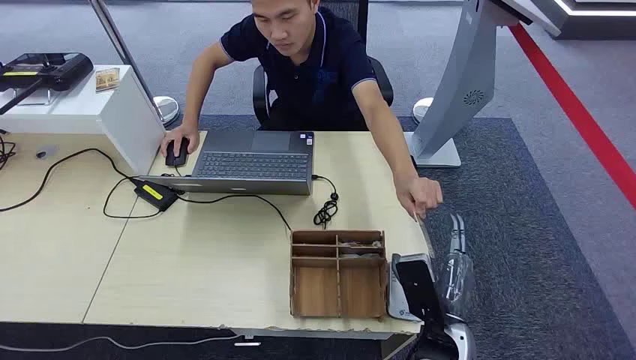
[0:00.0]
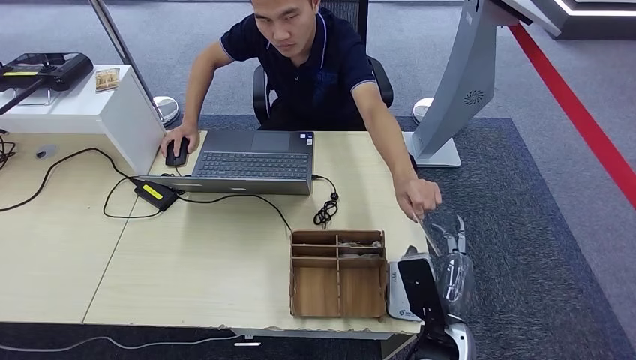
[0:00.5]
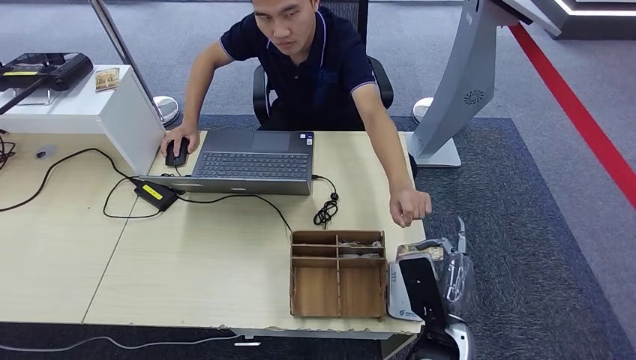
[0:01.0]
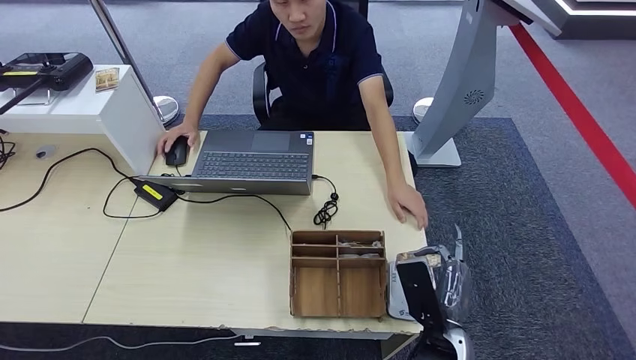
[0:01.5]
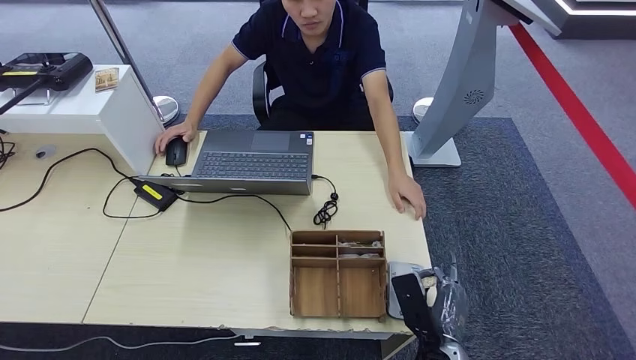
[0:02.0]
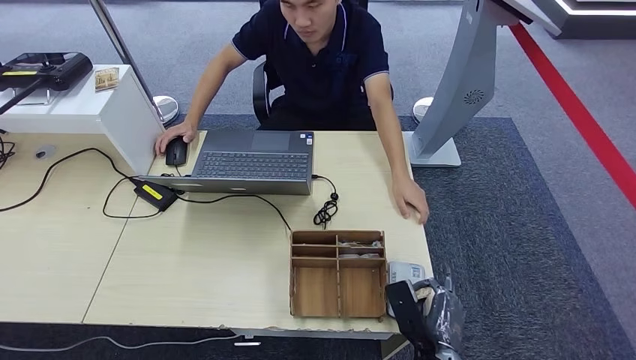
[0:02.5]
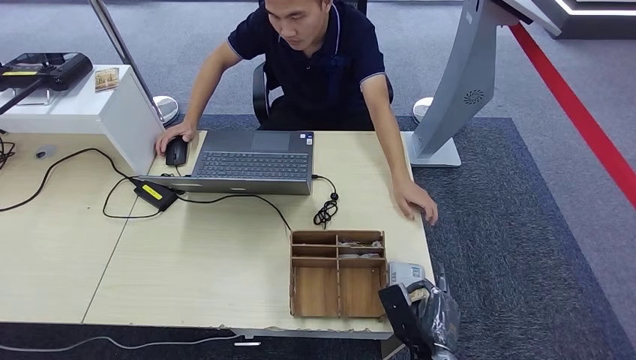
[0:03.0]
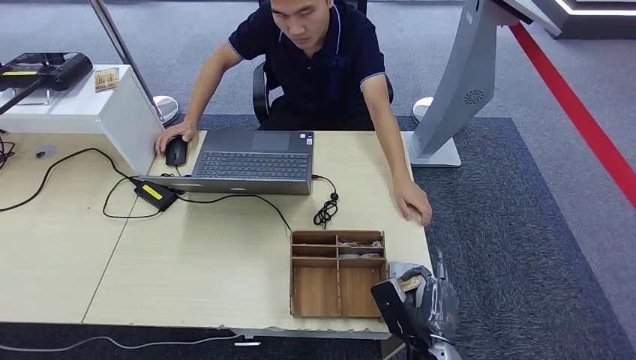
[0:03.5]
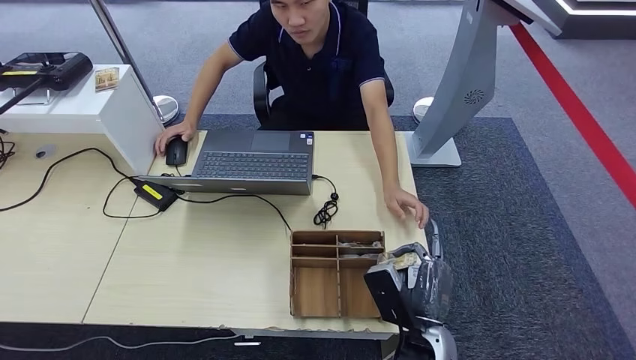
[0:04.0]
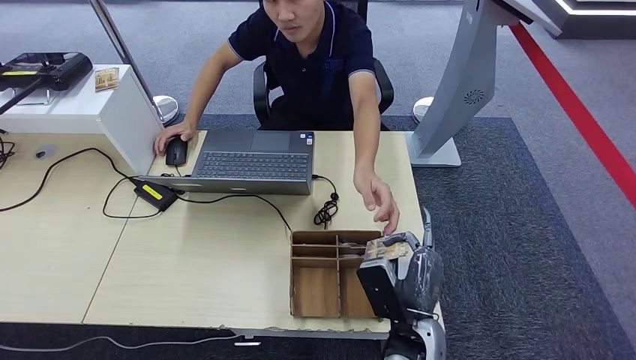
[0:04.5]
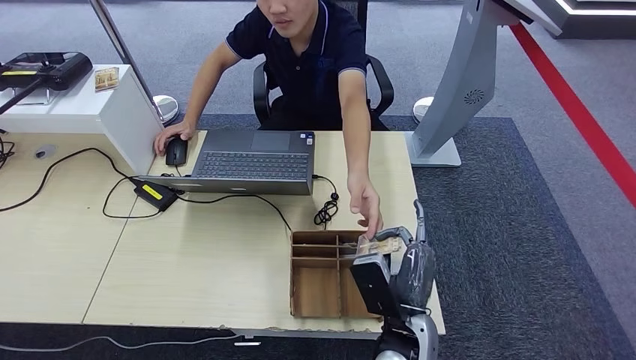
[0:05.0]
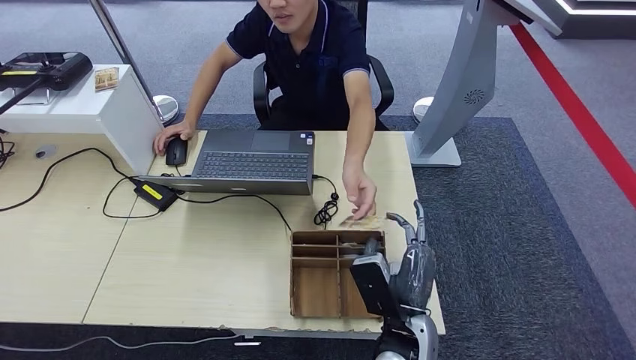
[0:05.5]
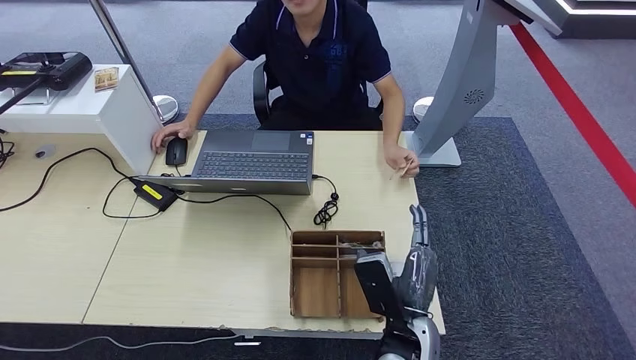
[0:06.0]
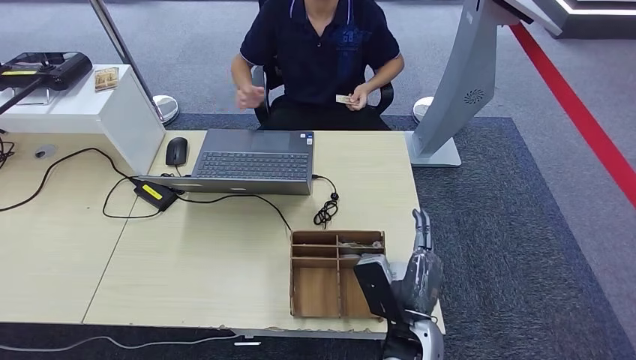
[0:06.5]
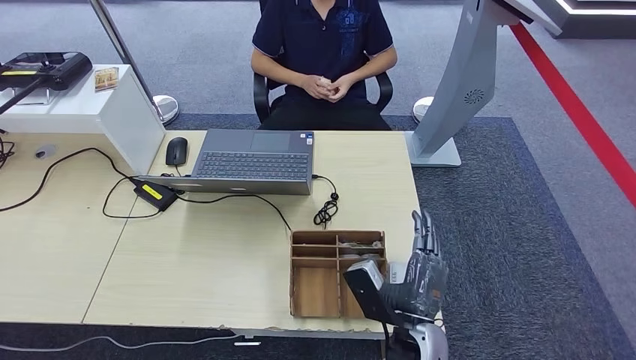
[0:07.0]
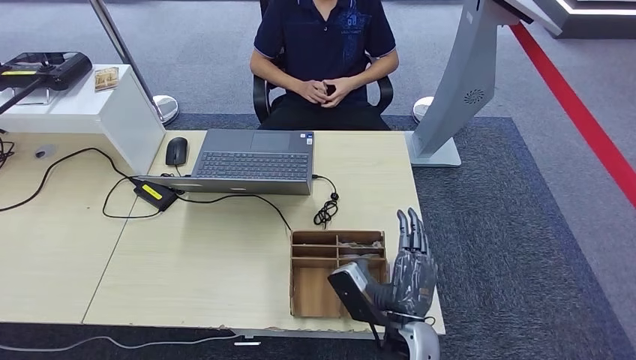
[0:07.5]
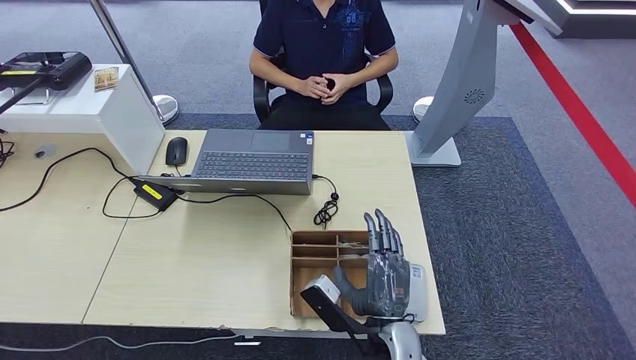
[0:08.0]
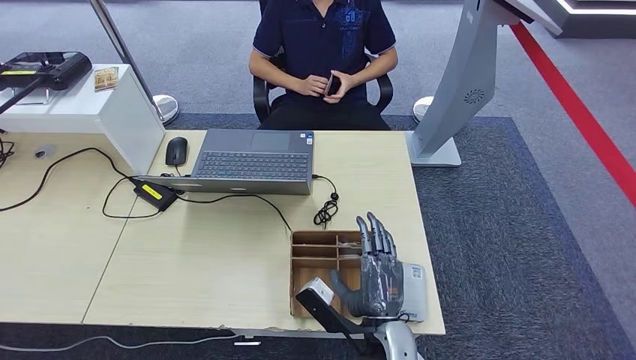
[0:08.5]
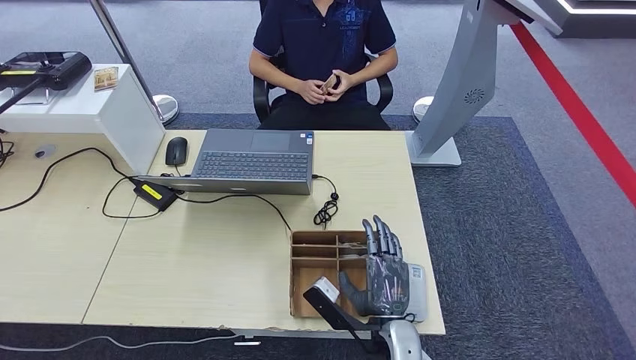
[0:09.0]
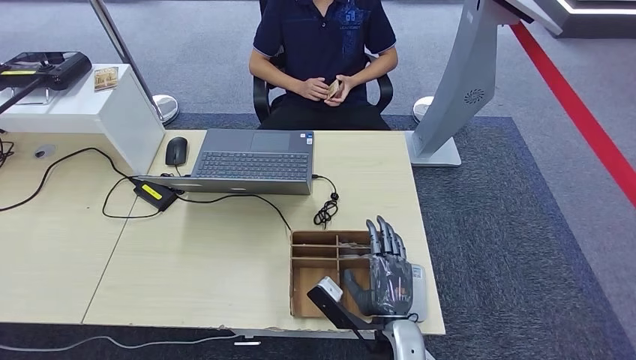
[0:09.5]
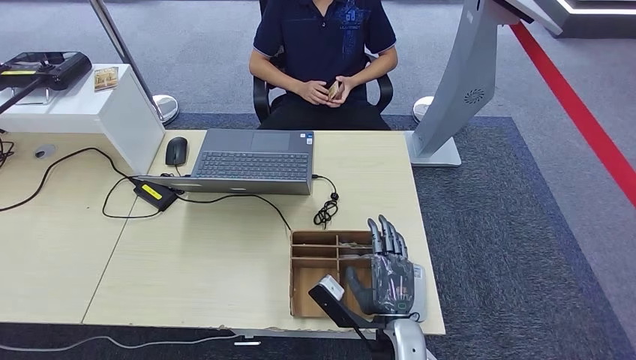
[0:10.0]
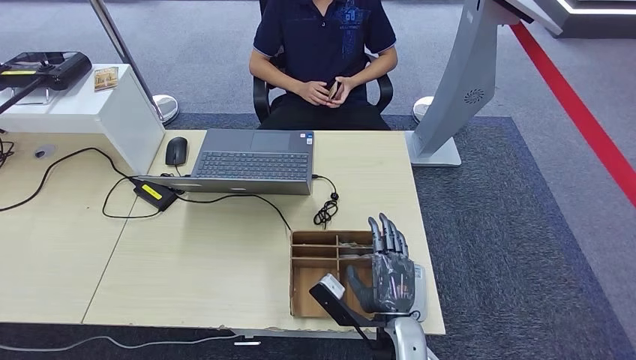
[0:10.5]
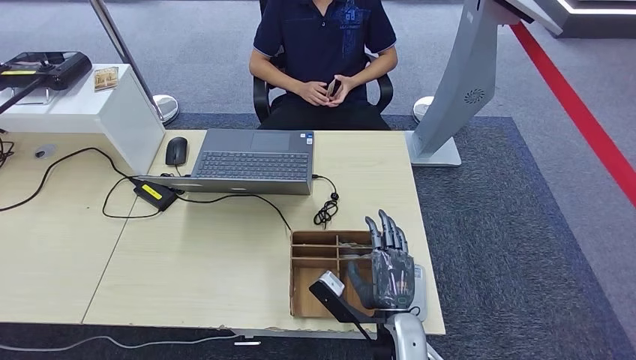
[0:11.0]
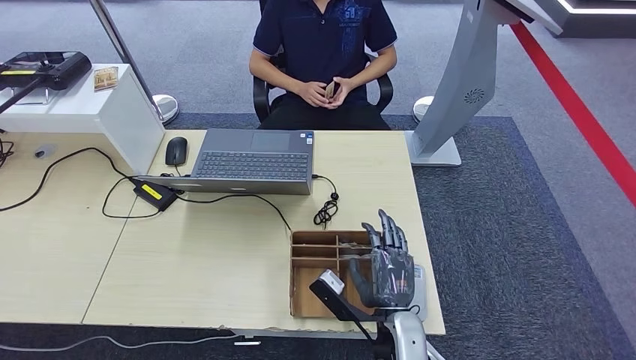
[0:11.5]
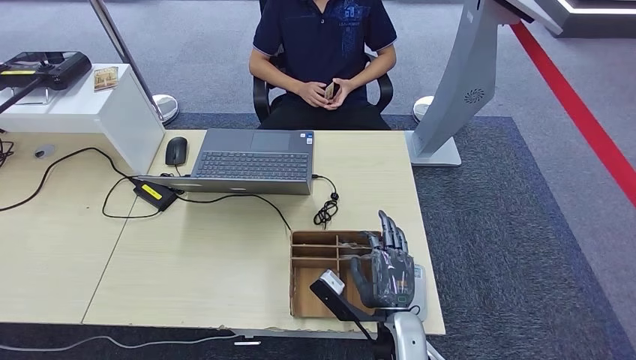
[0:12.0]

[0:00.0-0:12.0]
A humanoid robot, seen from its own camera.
Step, 0:00.0 to 0:01.0: Take the ID card from the person's hand.
Step, 0:02.0 to 0:03.5: Place the ID card on the card reader.
Step, 0:04.0 to 0:05.5: Hand the ID card to the person.
0:02.0 to 0:04.0: The right hand shifts by approximately 5 cm.
0:04.0 to 0:06.0: The hands make only small movements.
0:08.0 to 0:10.0: The hands stay close to where they were, moving slightly.
0:10.0 to 0:12.0: The two hands keep their place.

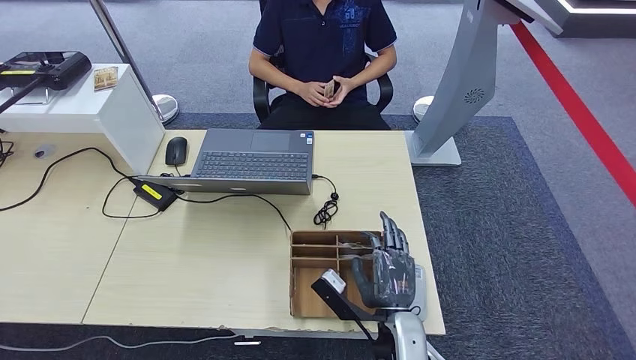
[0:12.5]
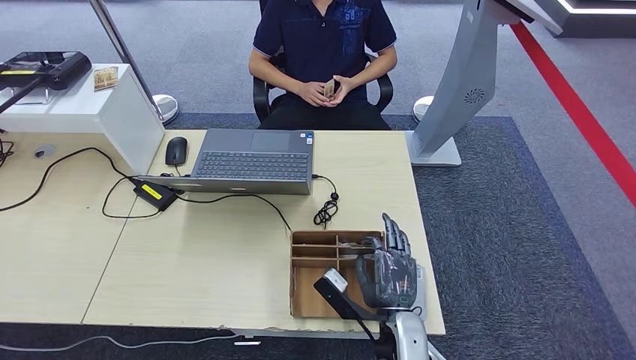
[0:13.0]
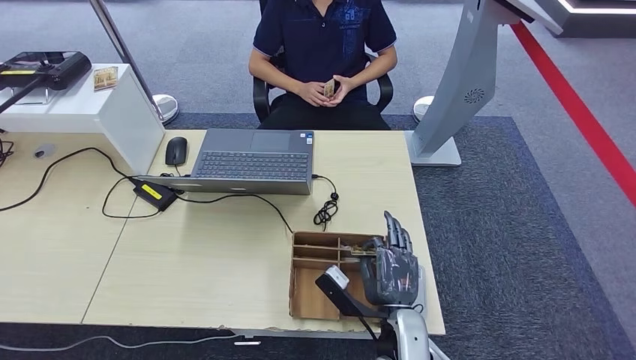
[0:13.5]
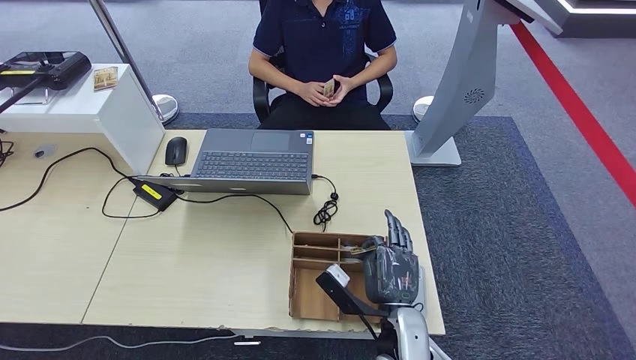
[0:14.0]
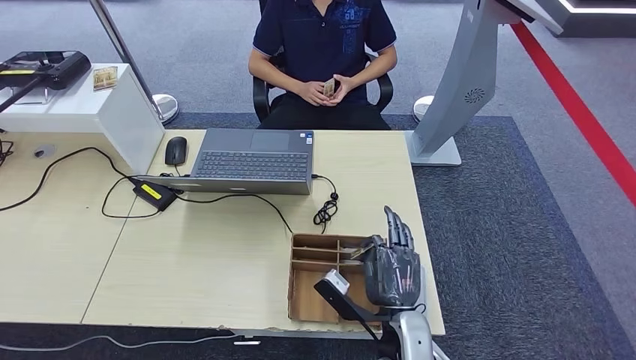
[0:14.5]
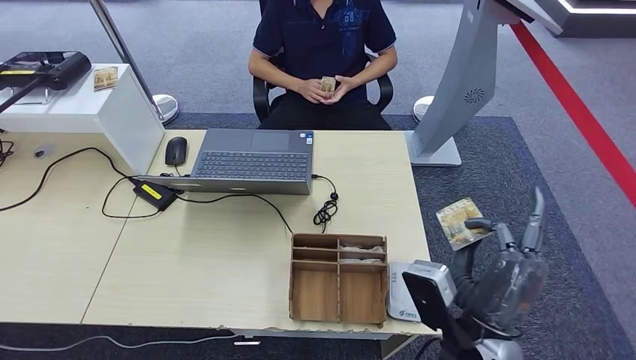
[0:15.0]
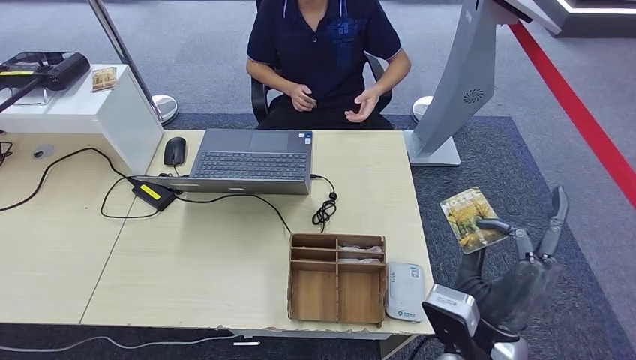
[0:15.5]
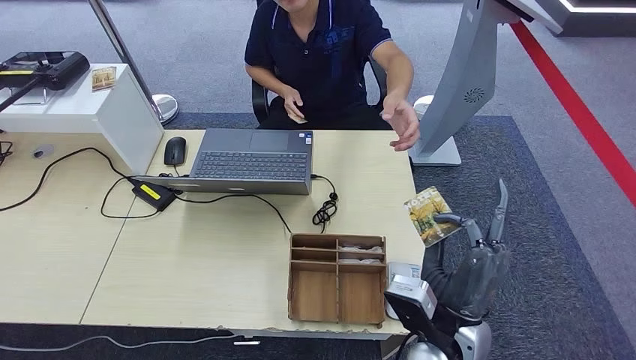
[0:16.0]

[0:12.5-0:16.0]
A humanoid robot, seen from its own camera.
Step, 0:12.5 to 0:15.0: Pick up the room key from the key card box.
Step, 0:15.5 to 0:16.0: Hand the room key to the person.
0:12.5 to 0:14.5: Neither hand changes place.
0:14.5 to 0:16.0: The right hand moves upward, some 10 cm.
